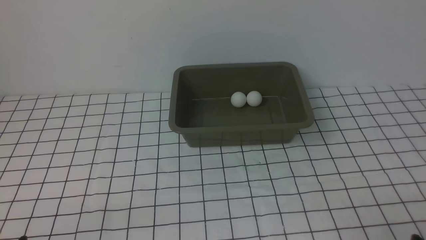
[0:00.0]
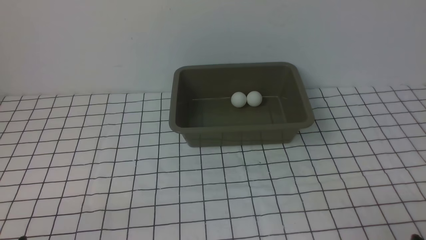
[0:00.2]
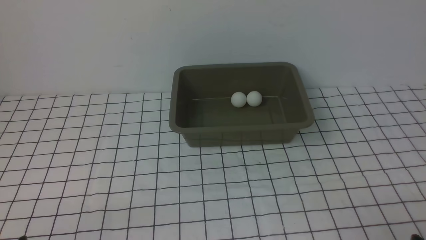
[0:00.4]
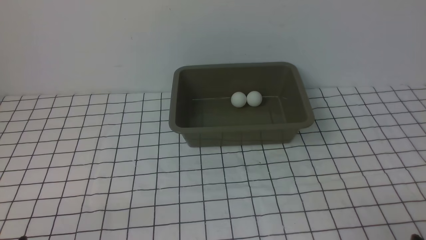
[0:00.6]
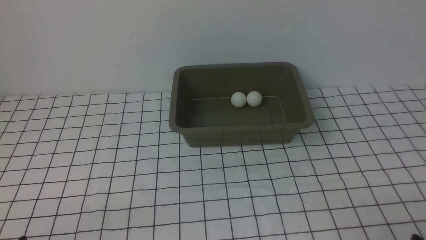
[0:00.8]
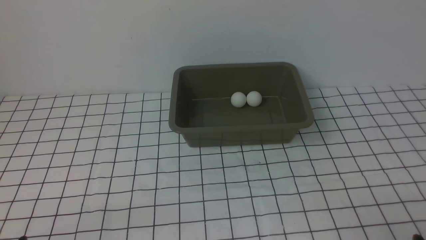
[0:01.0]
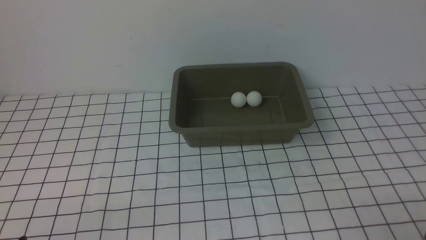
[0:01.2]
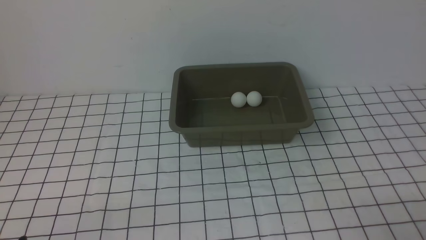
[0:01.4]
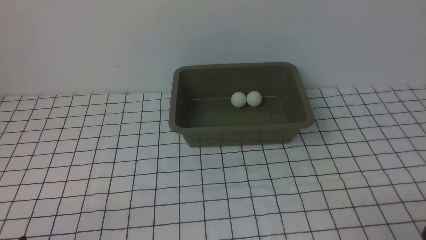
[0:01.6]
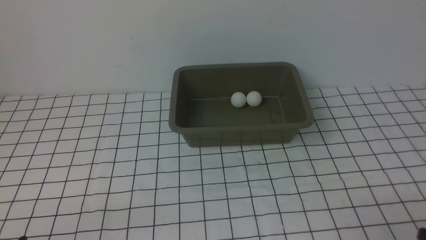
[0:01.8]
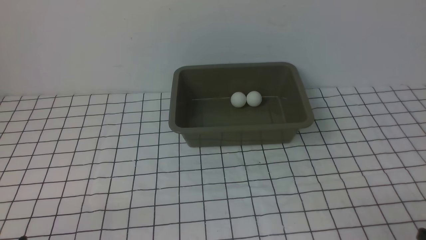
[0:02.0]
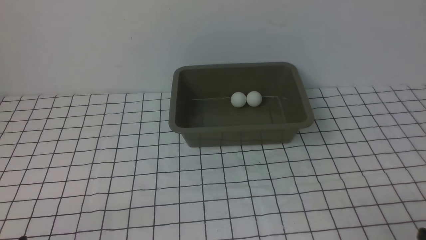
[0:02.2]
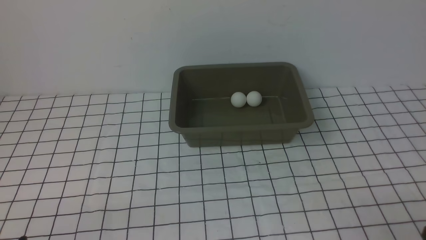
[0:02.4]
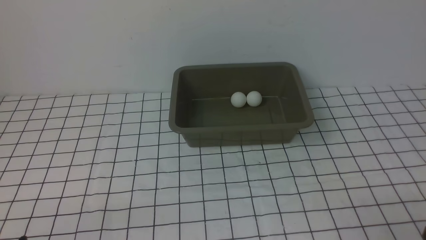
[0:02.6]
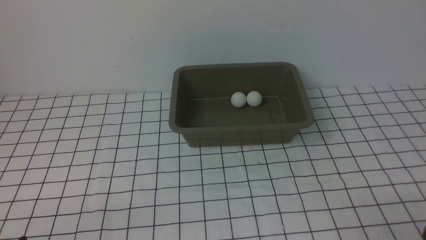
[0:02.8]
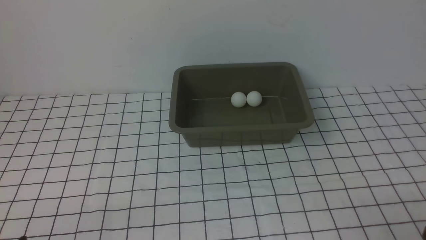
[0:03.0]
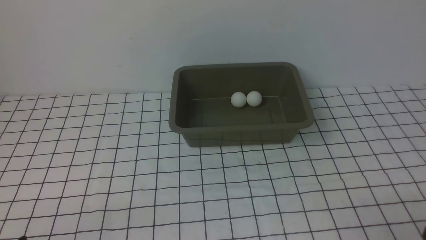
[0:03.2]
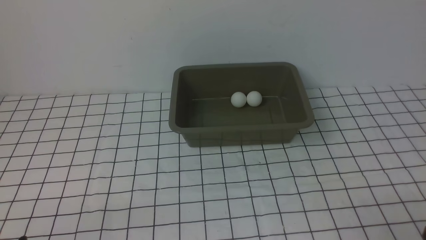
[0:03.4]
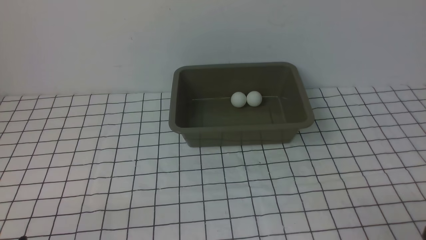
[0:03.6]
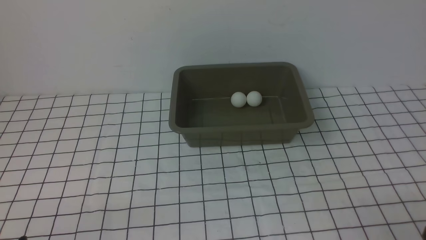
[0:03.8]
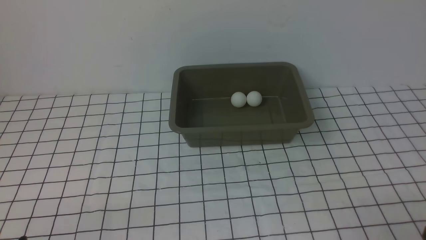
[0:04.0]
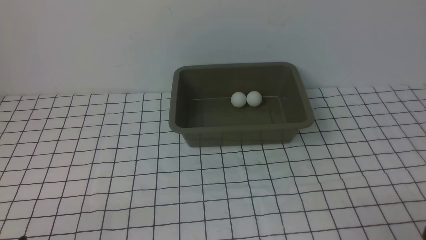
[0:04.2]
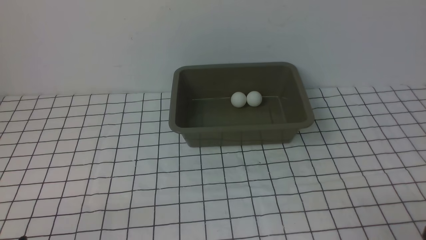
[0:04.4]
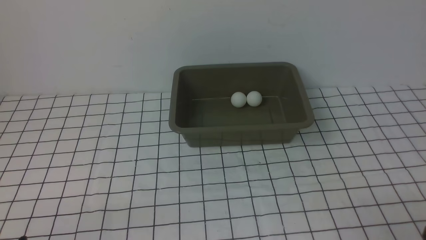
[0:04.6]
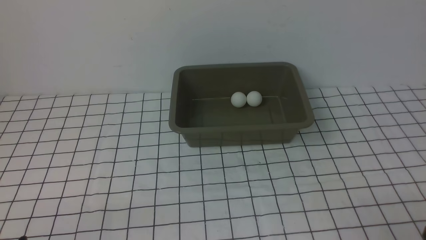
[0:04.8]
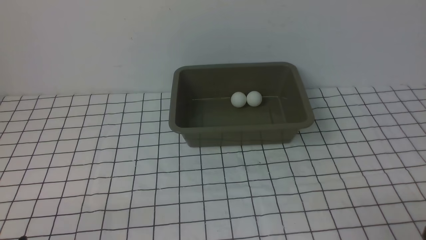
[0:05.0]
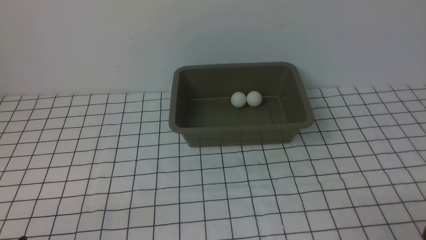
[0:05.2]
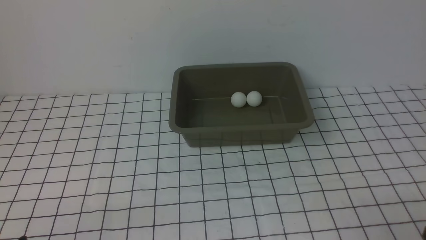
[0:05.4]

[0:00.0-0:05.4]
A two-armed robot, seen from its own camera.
0:02.8 to 0:05.4: Both grippers stay put.
